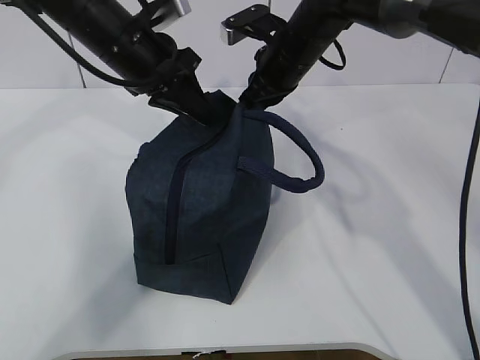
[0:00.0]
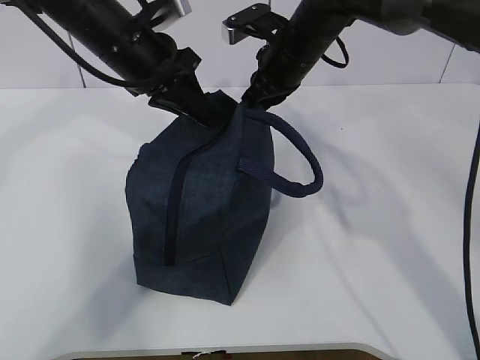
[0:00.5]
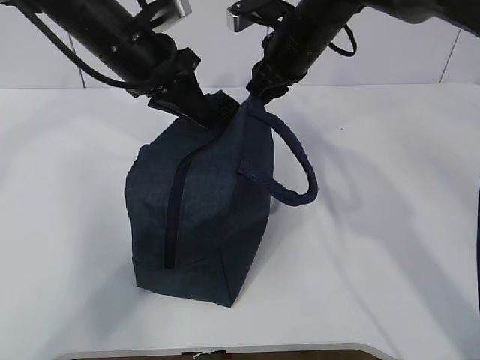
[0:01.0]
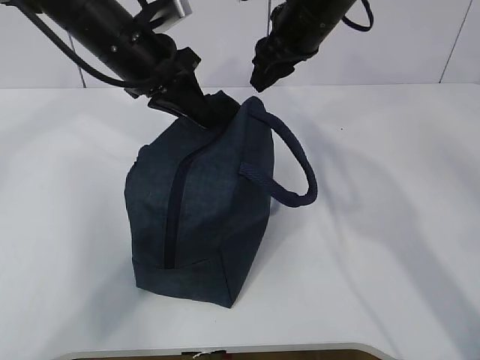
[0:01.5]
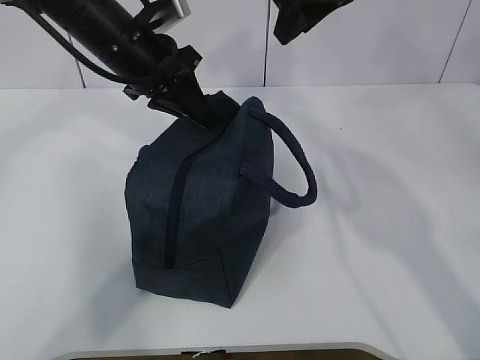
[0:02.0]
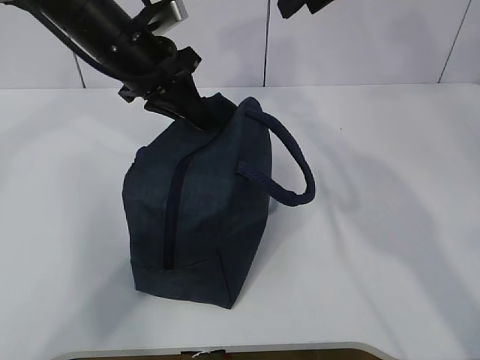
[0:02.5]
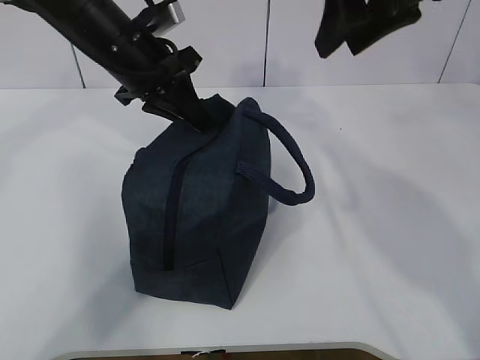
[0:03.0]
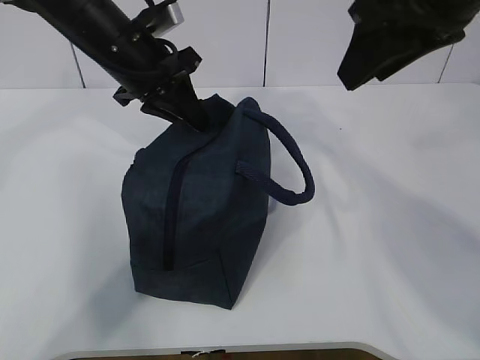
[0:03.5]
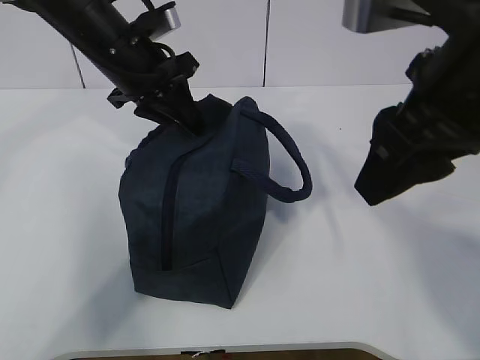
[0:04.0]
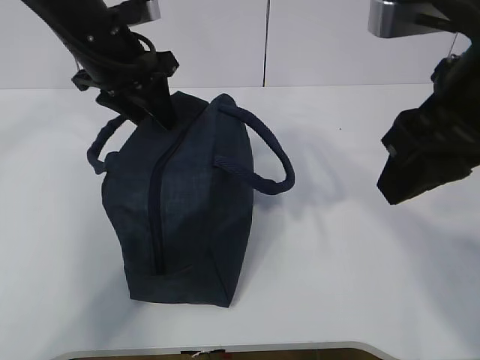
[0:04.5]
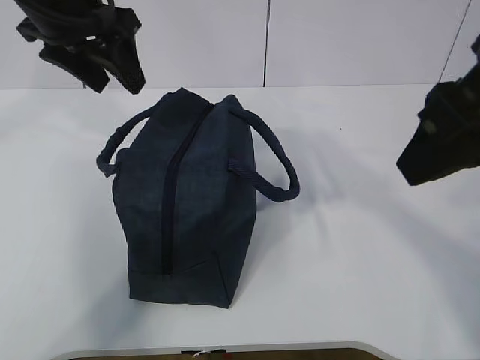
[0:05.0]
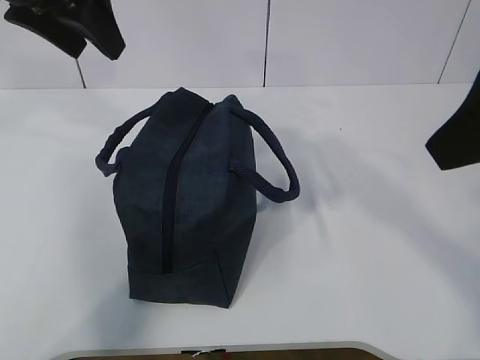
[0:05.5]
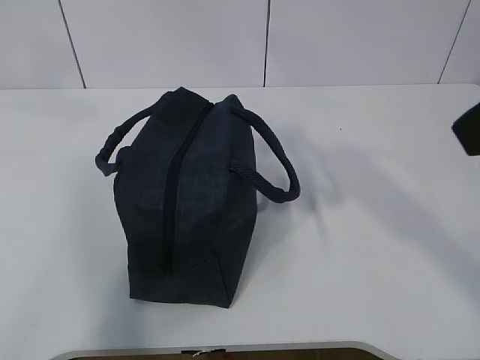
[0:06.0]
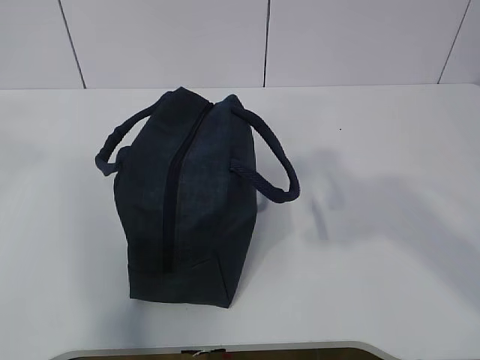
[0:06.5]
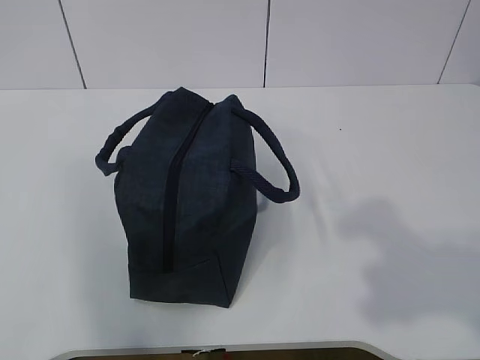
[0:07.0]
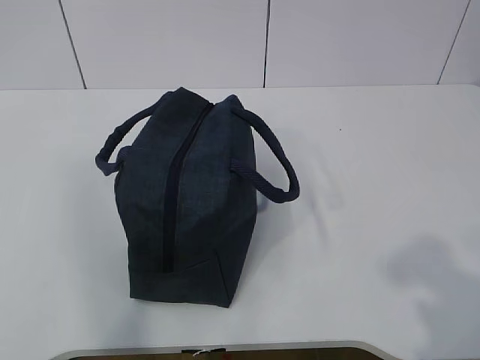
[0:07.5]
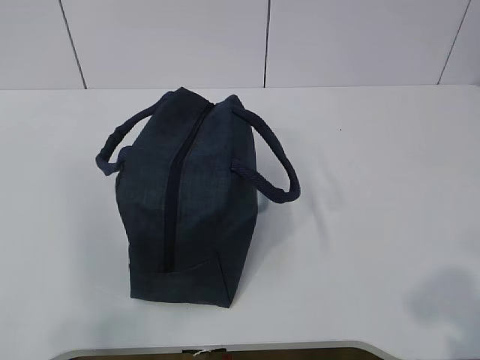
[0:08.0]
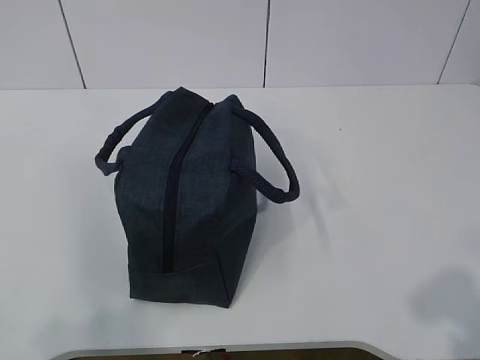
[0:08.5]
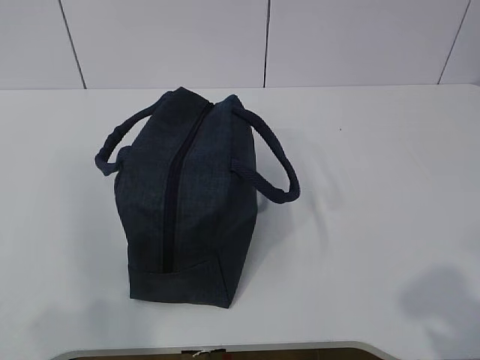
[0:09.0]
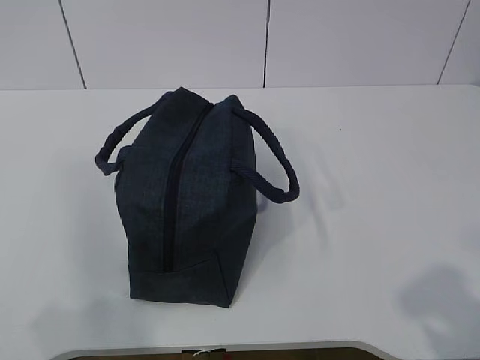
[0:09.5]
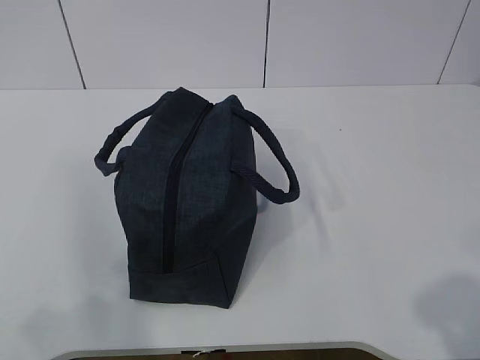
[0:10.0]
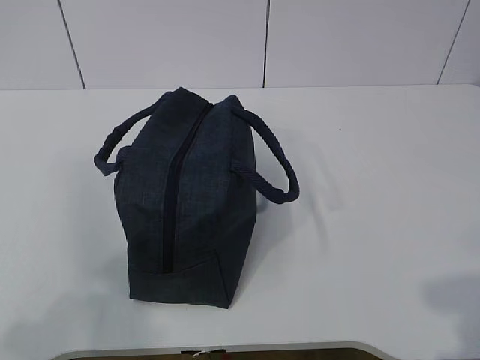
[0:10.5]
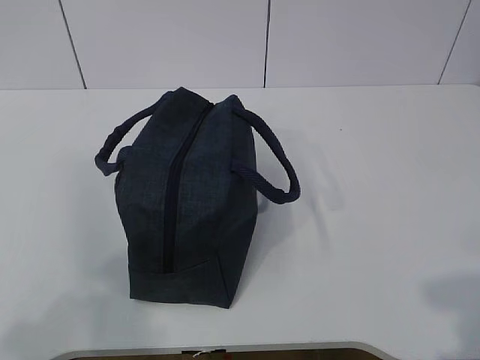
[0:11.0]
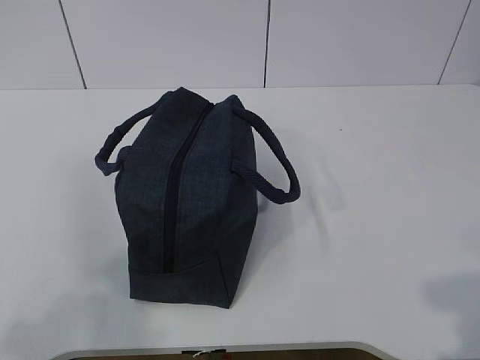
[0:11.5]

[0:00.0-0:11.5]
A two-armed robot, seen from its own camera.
0:00.0 to 0:02.0: The right gripper travels upward and backward by roughly 15 cm, and opens up.
0:02.0 to 0:04.0: The right gripper is displaced backward by approximately 20 cm.
0:04.0 to 0:06.0: The left gripper is displaced upward, backward and to the left by approximately 25 cm, and opens its fingers, while the right gripper travels backward and upward by approximately 10 cm.
0:06.0 to 0:07.5: The left gripper goes some 30 cm backward, and closes its fingers, while the right gripper goes some 20 cm backward, to the right and downward.

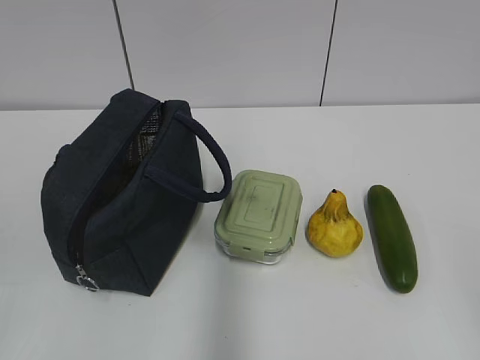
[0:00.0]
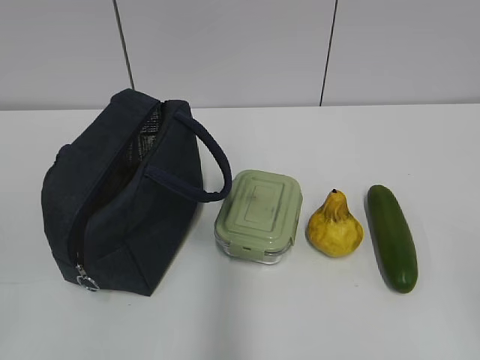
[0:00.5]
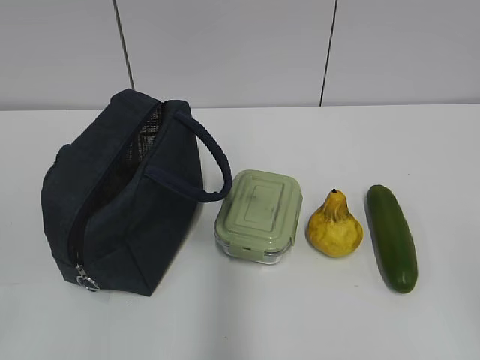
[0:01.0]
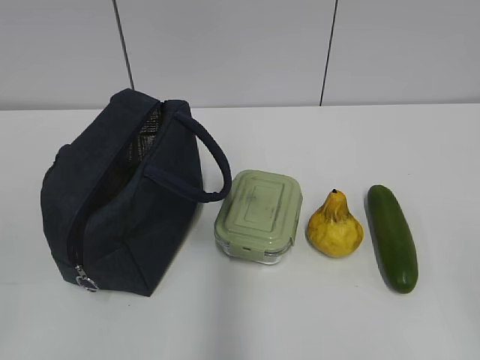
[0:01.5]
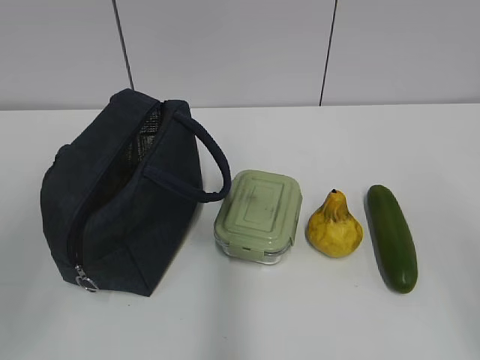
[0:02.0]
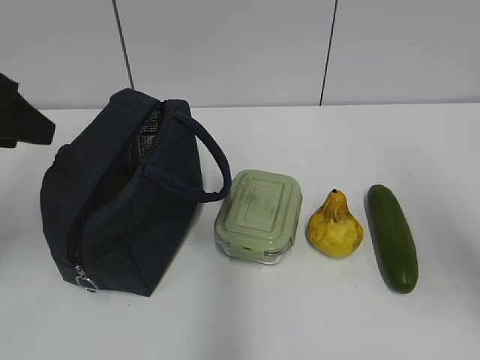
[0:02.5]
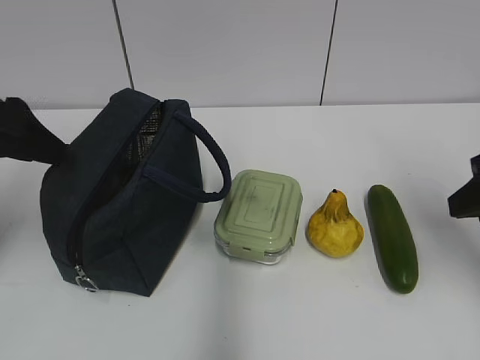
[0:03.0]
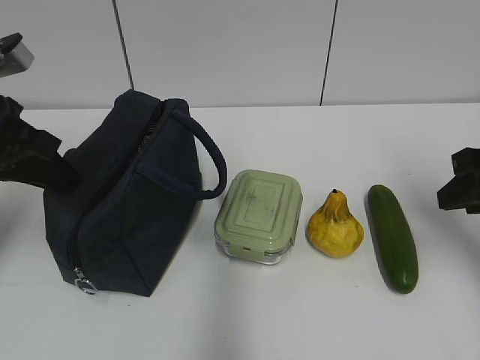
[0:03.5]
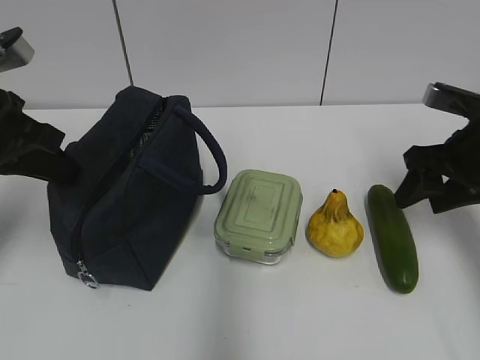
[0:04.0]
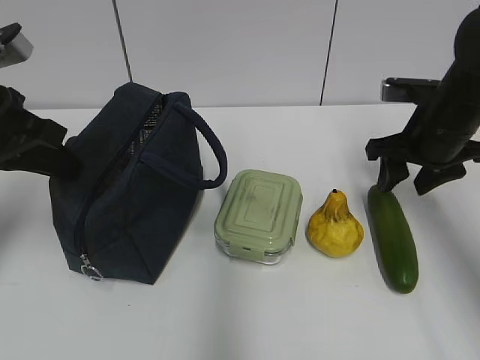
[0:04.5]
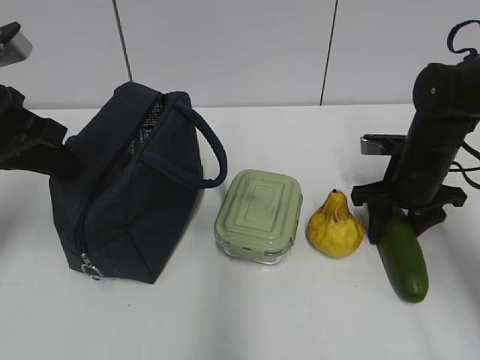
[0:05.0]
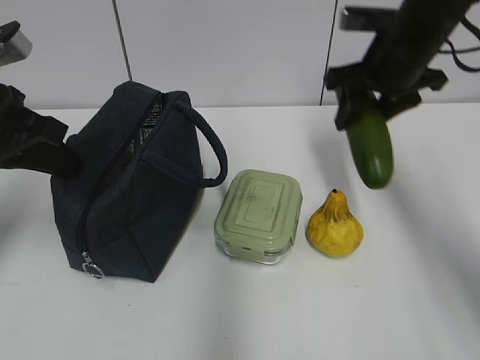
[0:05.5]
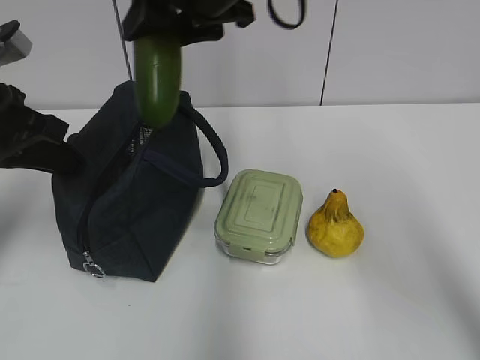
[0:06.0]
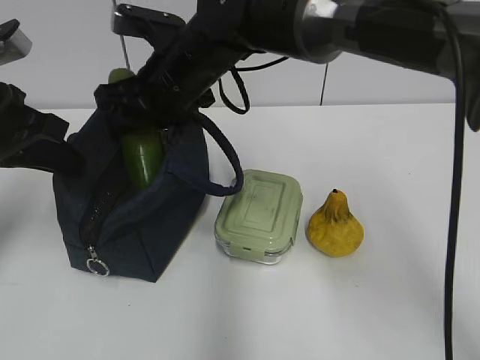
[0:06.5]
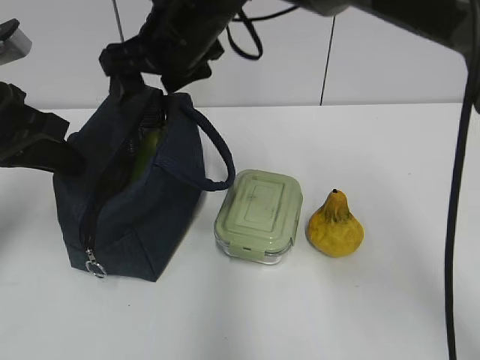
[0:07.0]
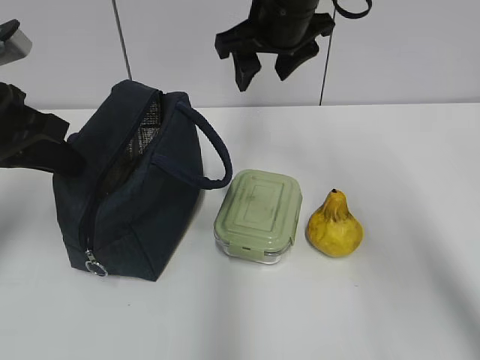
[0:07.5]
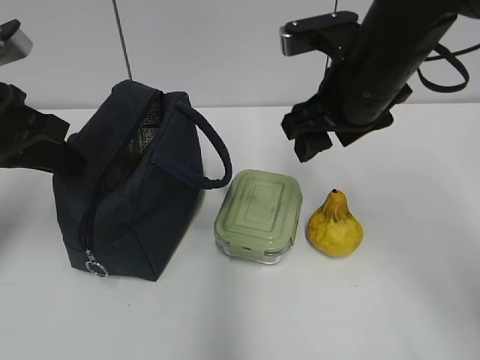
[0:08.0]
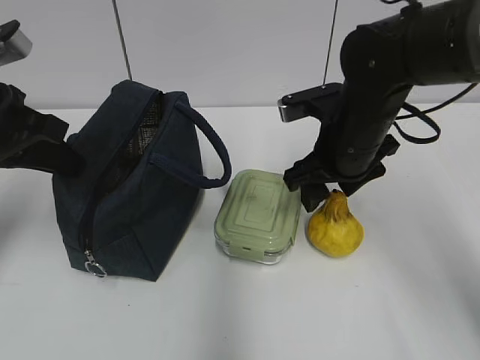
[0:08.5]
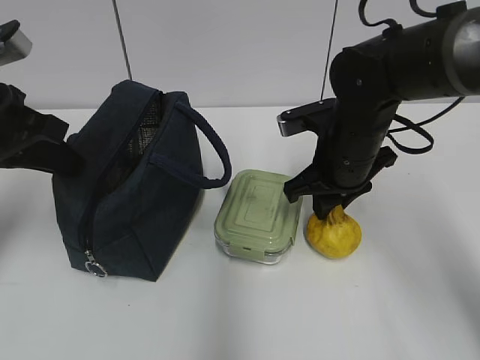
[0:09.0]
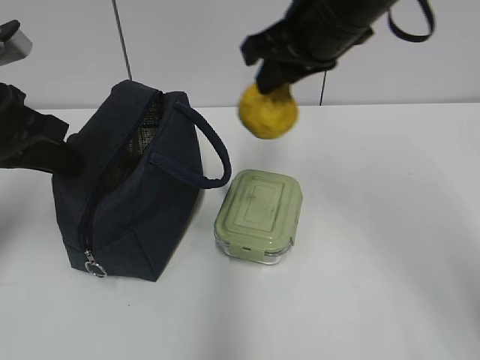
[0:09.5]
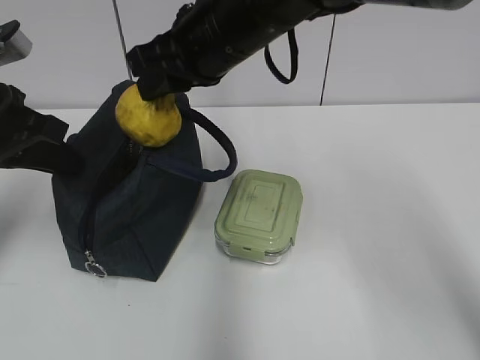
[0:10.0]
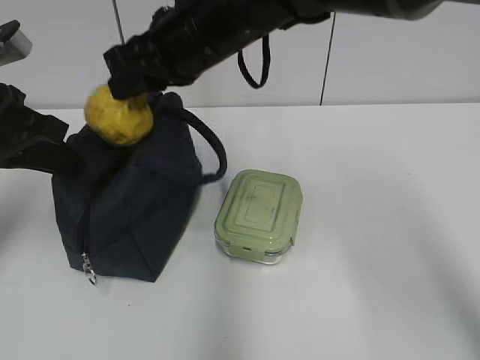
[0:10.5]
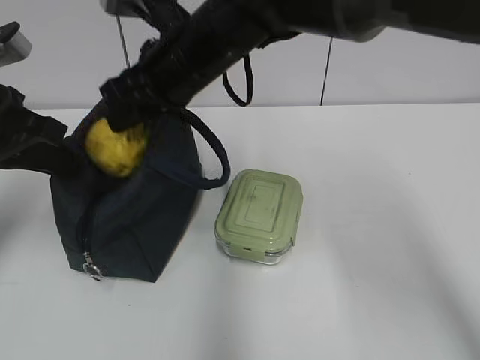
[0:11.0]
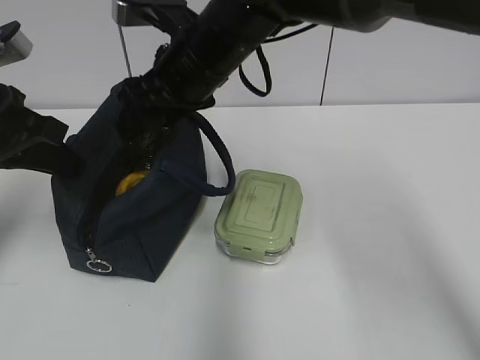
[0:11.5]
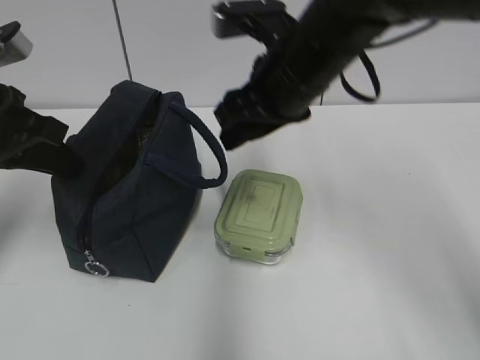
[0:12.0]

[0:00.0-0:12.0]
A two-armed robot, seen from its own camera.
Step, 0:00.0 to 0:04.5: Grab the cucumber with your right hand.
Step, 0:06.5 to 0:07.0: Place it into the bag with your right hand.
Step, 0:07.5 to 0:08.5: Grab the pear with your right hand.
Step, 0:09.0 to 0:11.5: Place it into the bag with your right hand.
0:02.0 to 0:04.0: The two grippers go some 25 cm forward and downward. The left gripper closes up.
0:04.0 to 0:06.0: The right gripper goes about 30 cm to the left and upward.
0:06.0 to 0:08.0: The right gripper goes about 15 cm to the right and downward.
0:08.0 to 0:10.0: The right gripper travels to the left by roughly 10 cm, moves about 10 cm downward and comes back, and closes its fingers.
0:10.0 to 0:12.0: The right gripper travels to the right by approximately 5 cm, and opens.

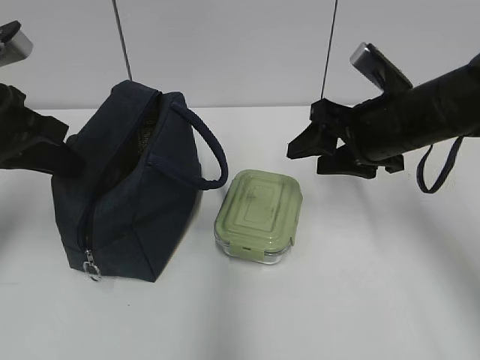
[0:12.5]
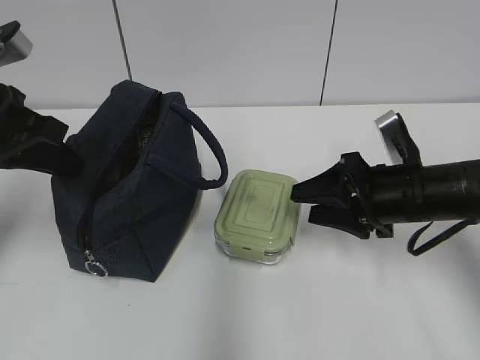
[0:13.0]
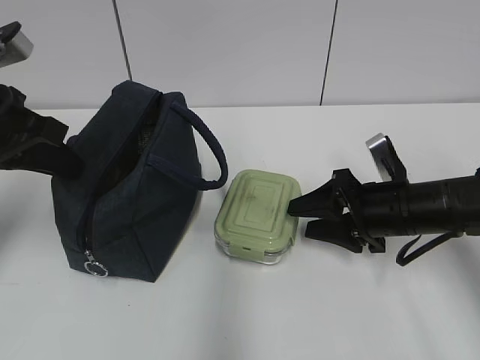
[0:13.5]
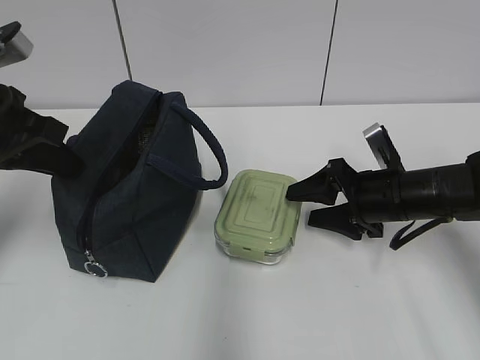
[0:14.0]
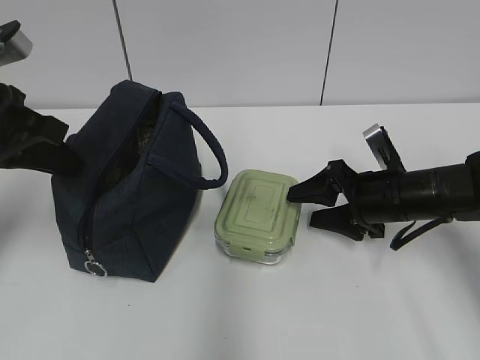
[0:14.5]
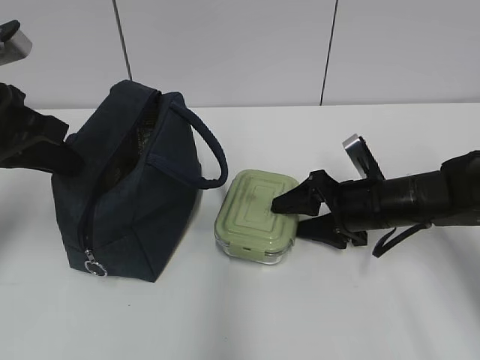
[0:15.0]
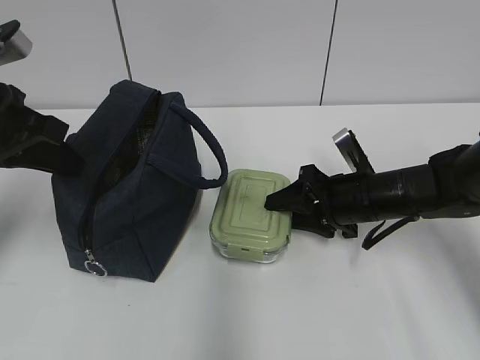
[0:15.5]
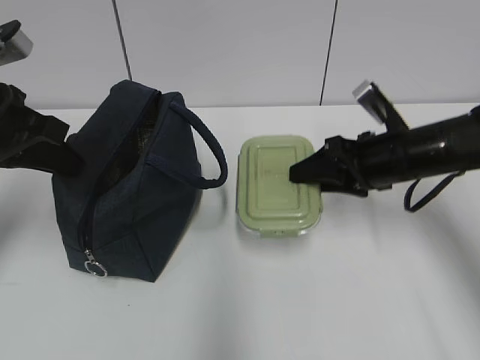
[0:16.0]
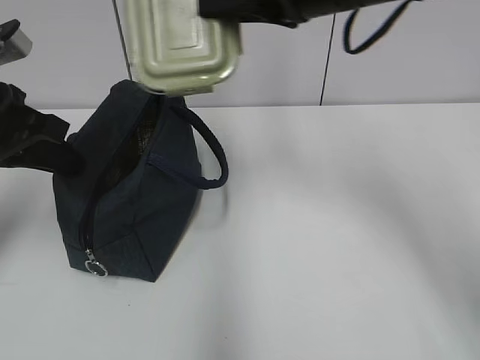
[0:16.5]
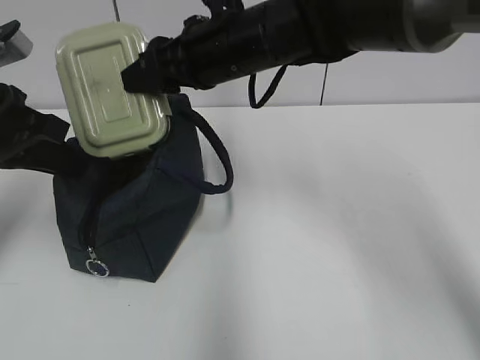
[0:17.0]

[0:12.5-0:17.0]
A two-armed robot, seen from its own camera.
Step, 0:12.5 to 0:15.5: Grab the lunch box with your right hand.
0:12.5 to 0:14.5: The right gripper is displaced downward by about 10 cm.
0:14.5 to 0:17.0: The right gripper moves to the left and upward, some 25 cm, and closes.
